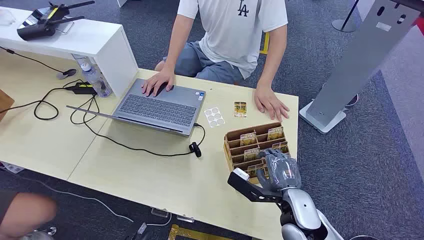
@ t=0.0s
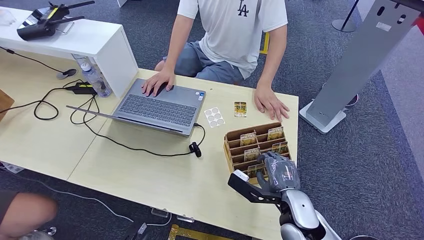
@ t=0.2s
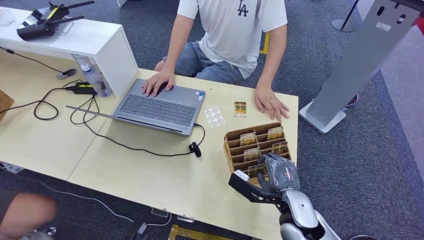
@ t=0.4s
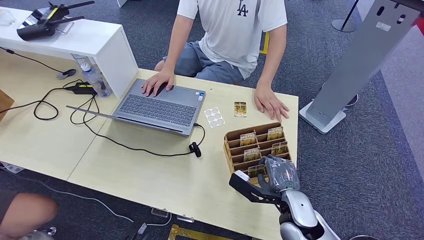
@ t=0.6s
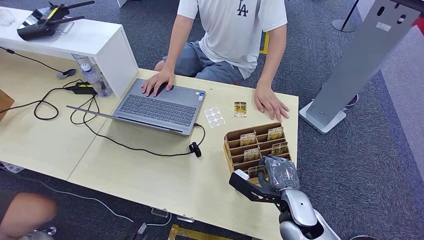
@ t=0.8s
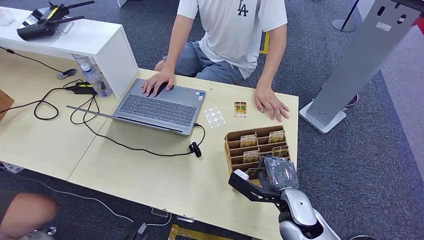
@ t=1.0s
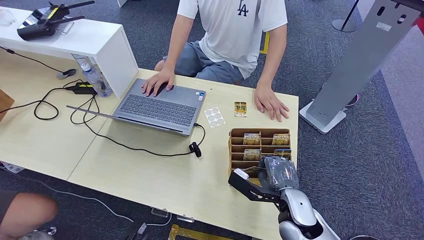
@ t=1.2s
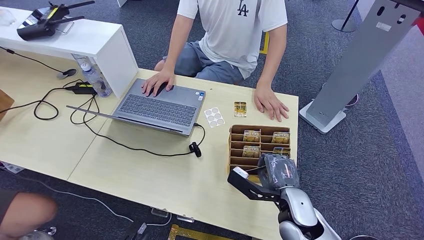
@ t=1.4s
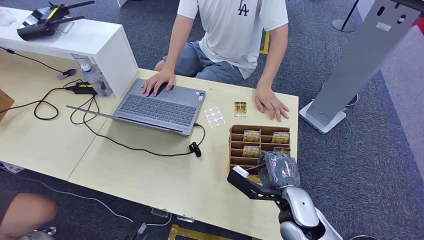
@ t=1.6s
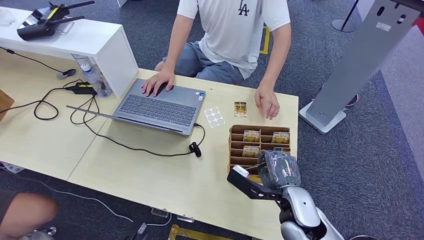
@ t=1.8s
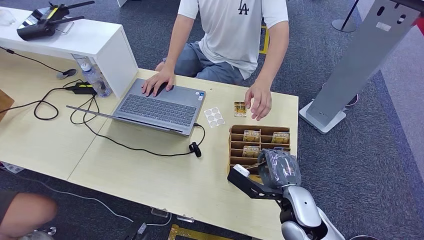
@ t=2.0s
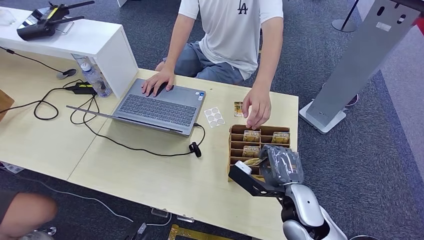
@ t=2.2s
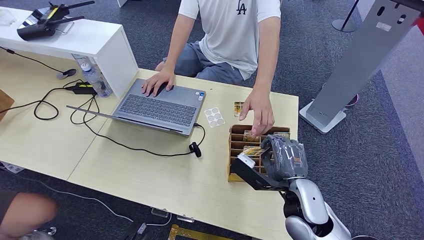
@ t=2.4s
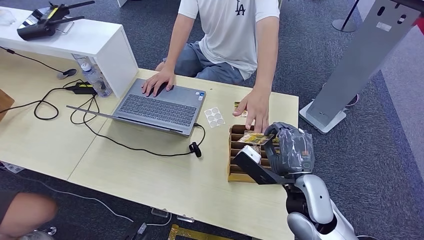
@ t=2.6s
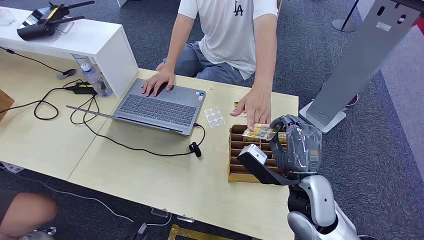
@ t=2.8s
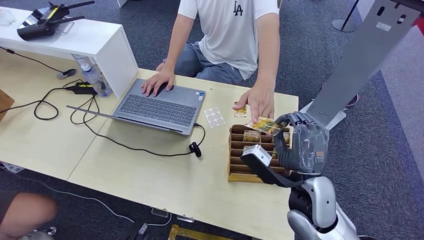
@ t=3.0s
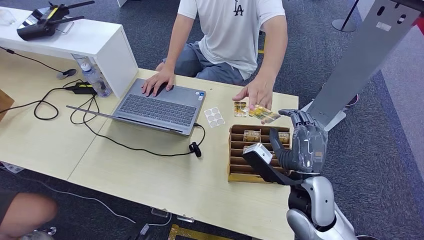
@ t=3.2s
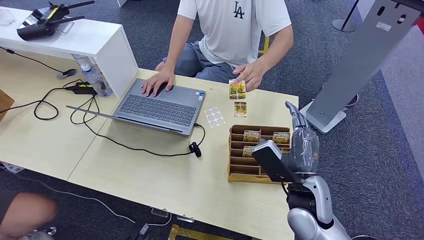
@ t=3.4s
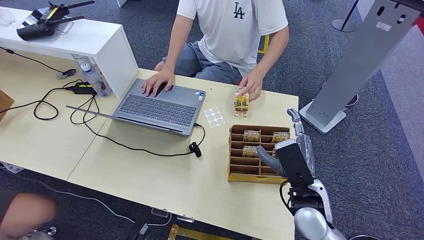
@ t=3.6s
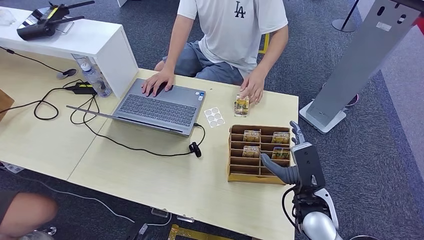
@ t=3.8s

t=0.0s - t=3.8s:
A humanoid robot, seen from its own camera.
Step, t=0.0s - t=2.2s: Pick up the room card from the card holder.
Step, t=2.4s - t=3.8s: Hand the room card to the target.
t=1.2s - t=2.6s: The right hand moves upward, approximately 10 cm.
t=2.6s - t=3.8s: The right hand moves approximately 5 cm.
